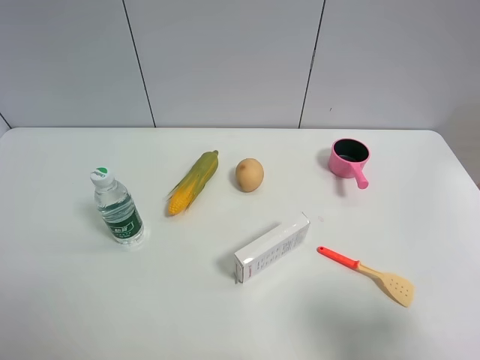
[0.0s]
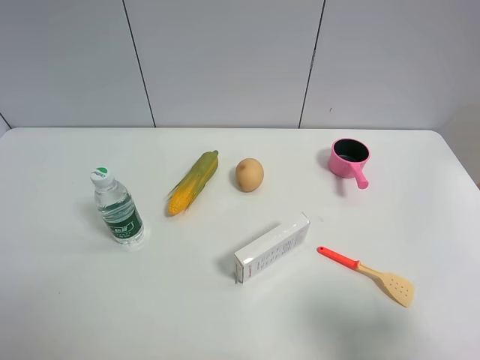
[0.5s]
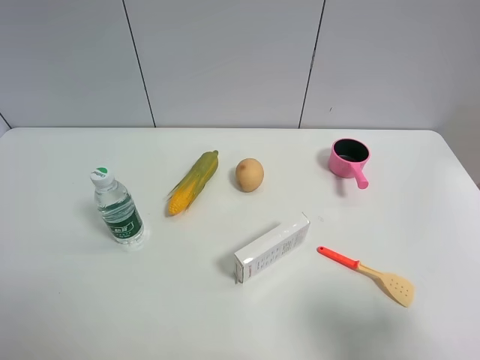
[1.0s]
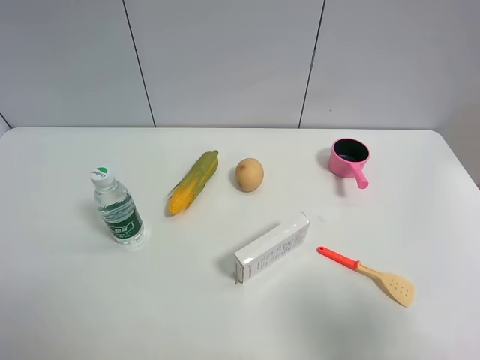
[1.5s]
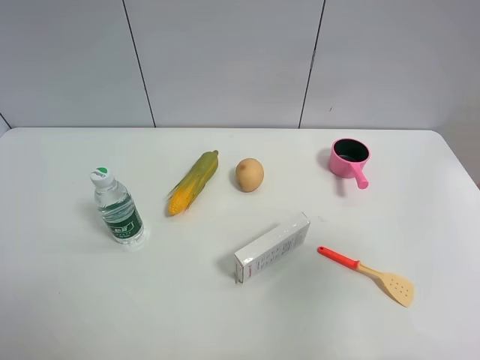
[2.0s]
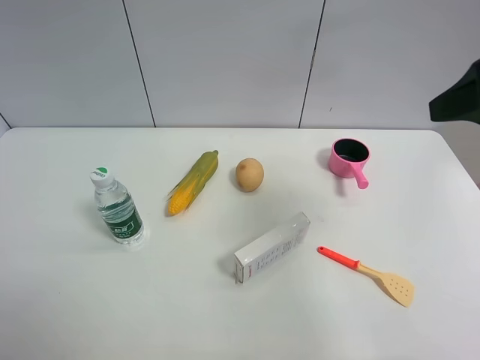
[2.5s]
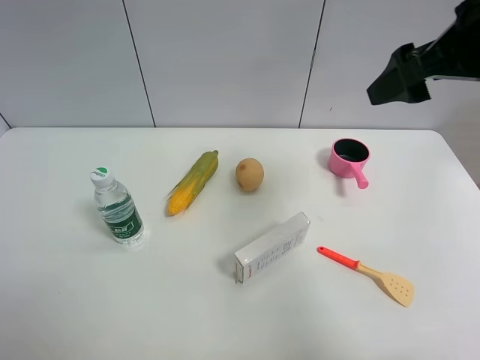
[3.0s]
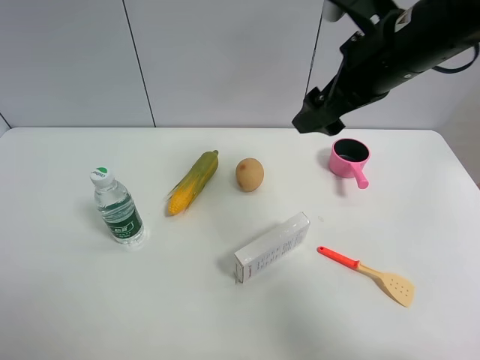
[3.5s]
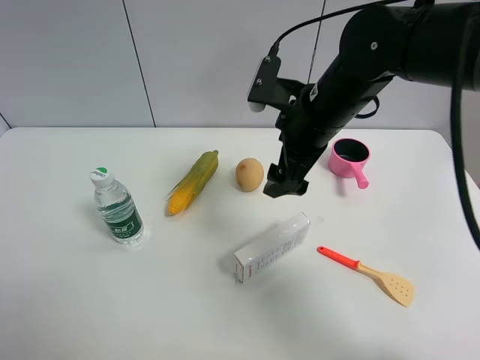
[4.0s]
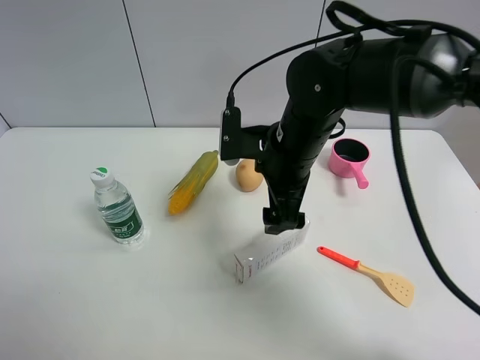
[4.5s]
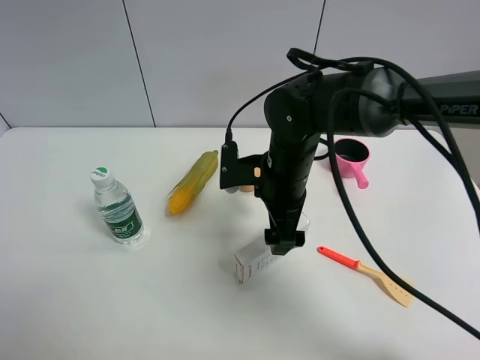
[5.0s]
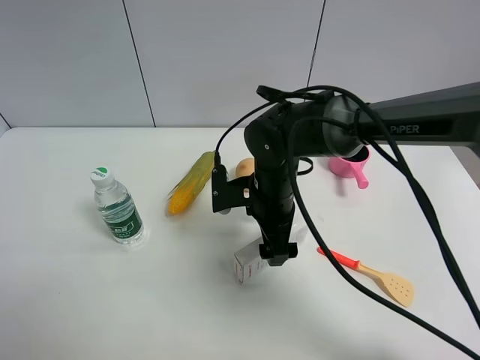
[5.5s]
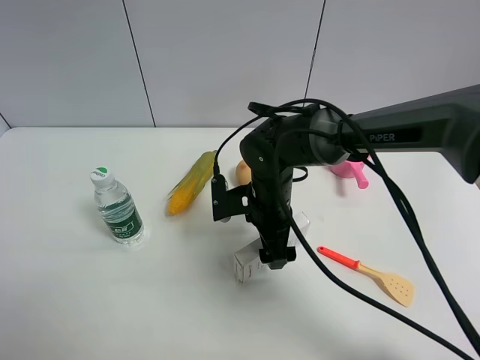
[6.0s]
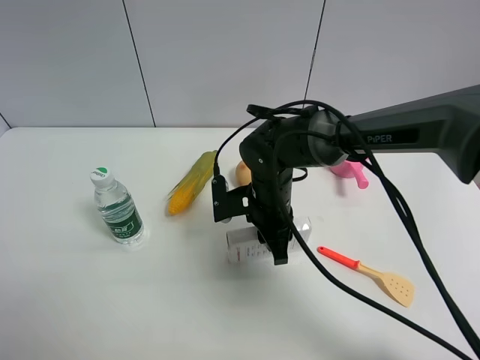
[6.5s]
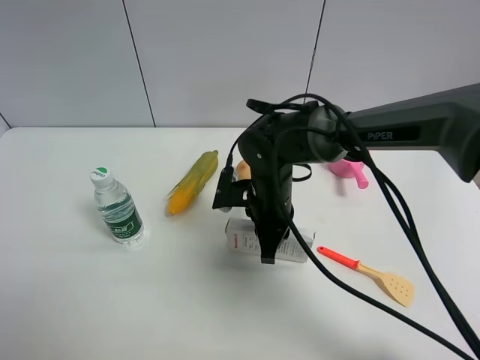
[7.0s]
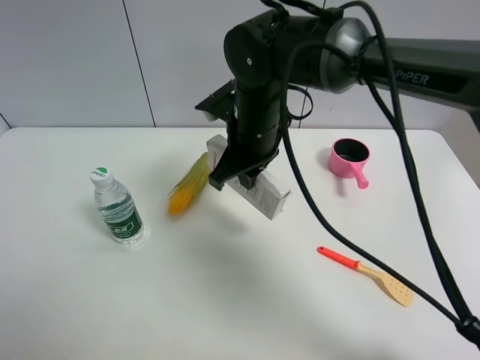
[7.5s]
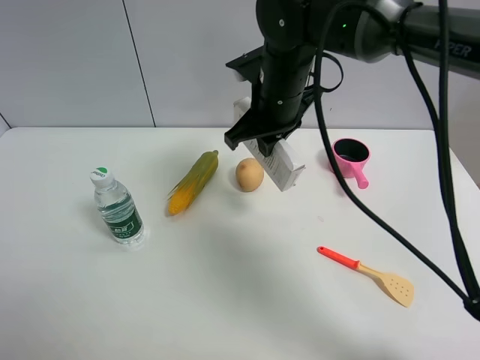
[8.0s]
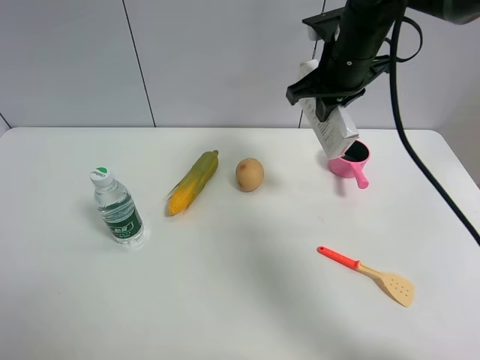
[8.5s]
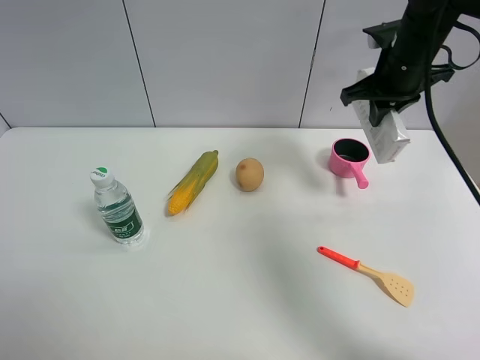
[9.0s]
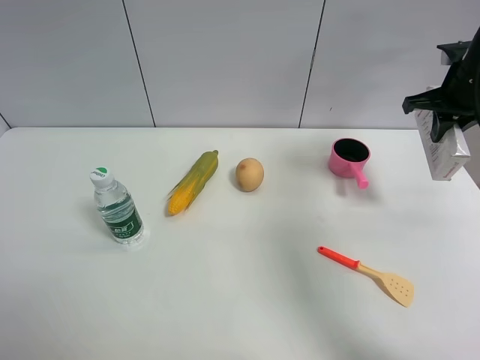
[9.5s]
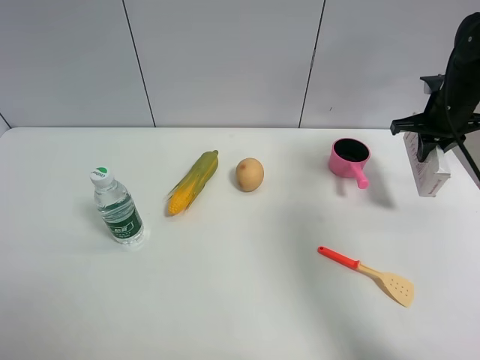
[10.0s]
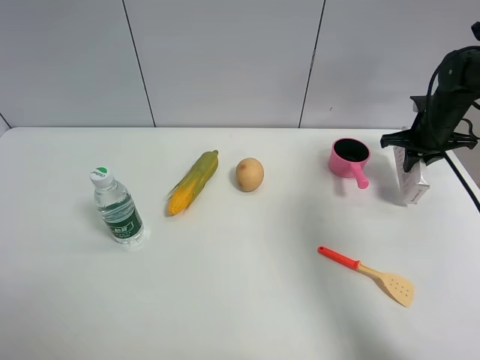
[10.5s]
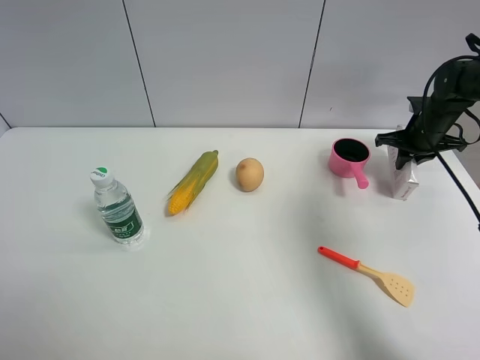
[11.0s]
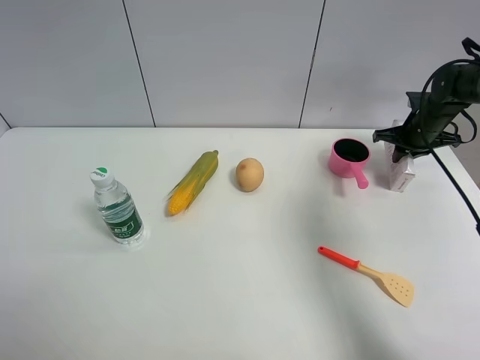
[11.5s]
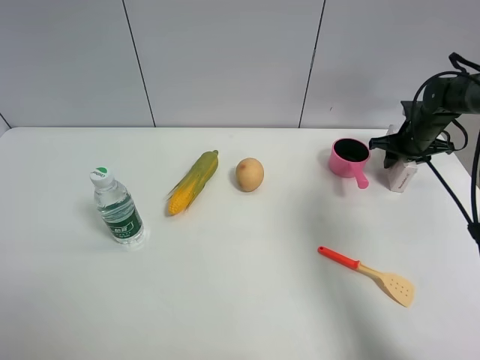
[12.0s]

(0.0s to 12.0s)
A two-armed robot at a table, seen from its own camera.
Task of the whole recording: the gripper move the object.
Step, 0.0s - 6.5s: Grasp the USB box with the right gripper.
0.0s - 2.0s: The right gripper shifts approximately 15 cm upward and forward.
2.0s - 4.0s: The right gripper heads forward, to the left and downward, covering about 35 cm.
4.0s - 6.0s: The right gripper heads downward, covering some 15 cm.
6.0s - 8.0s: The right gripper heads upward and forward, covering approximately 15 cm, and closes up.
8.0s - 10.0s: The right gripper shifts about 30 cm to the right.
10.0s - 12.0s: The right gripper moves downward and forward, about 10 cm, and opens.

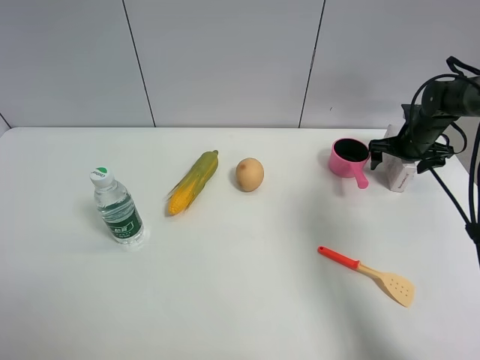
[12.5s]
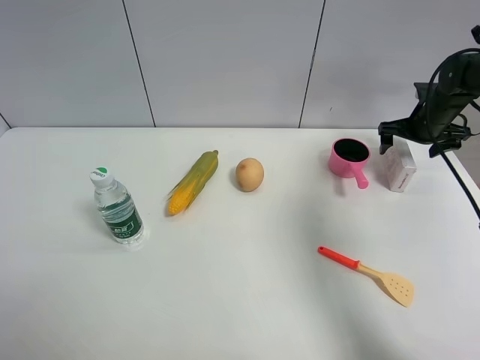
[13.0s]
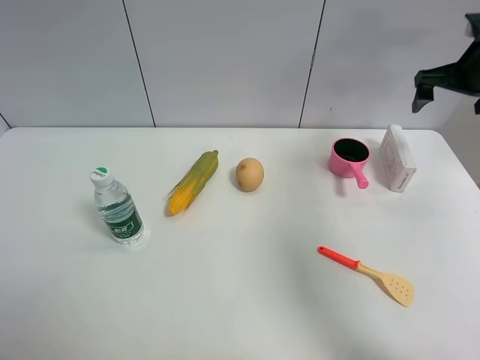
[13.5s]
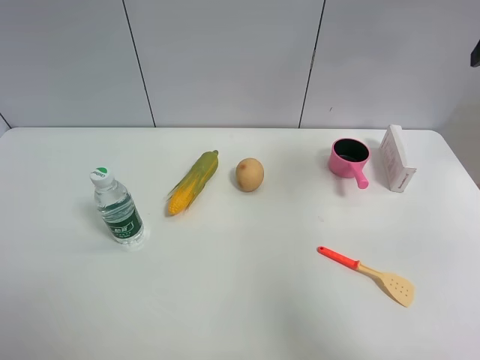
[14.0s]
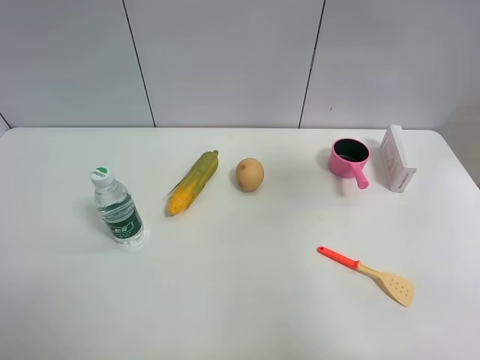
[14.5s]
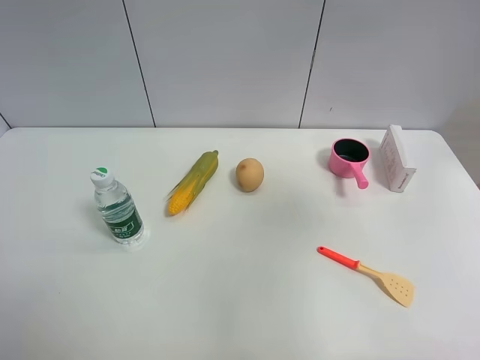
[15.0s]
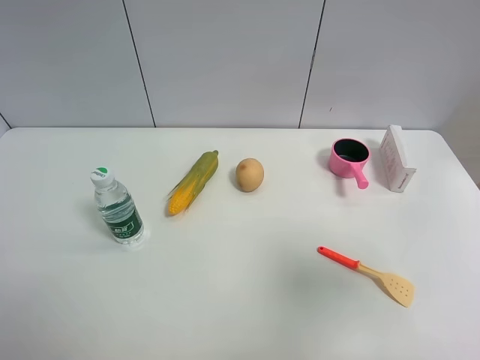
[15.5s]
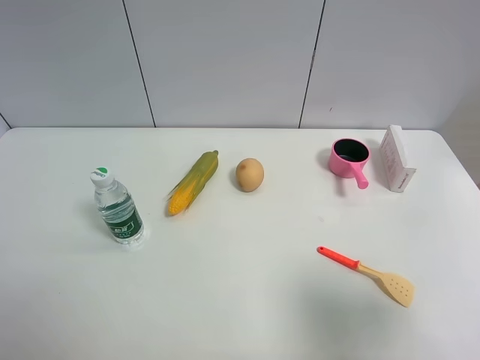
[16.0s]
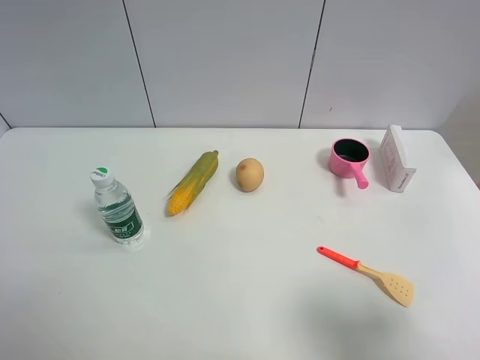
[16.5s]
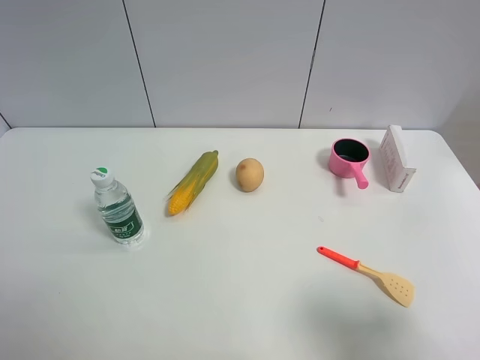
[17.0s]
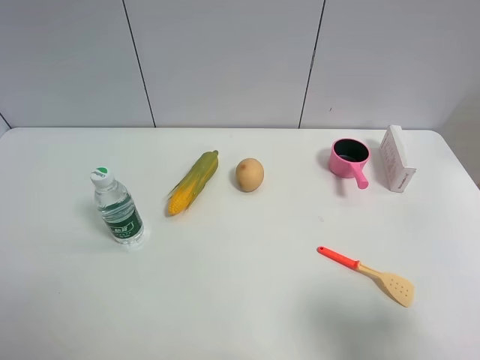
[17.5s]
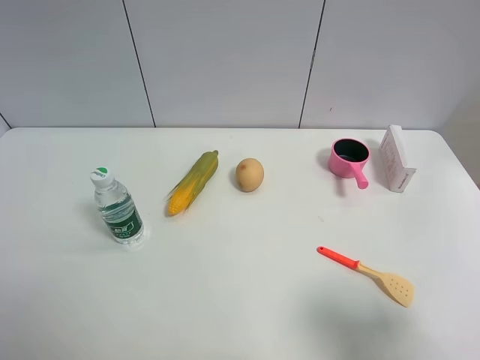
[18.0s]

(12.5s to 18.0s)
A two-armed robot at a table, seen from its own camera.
Task of the whole recording: the gripper move the object.
12.5s - 14.5s: The right gripper shifts about 40 cm upward and backward.
14.5s - 16.0s: The right gripper is displaced backward and downward by approximately 25 cm.

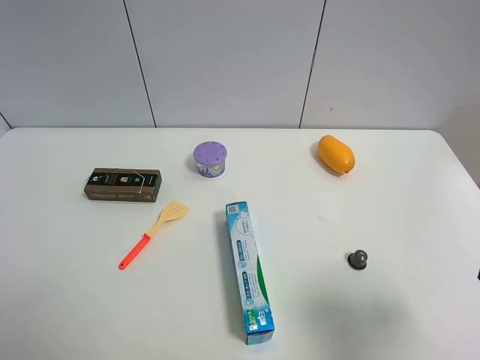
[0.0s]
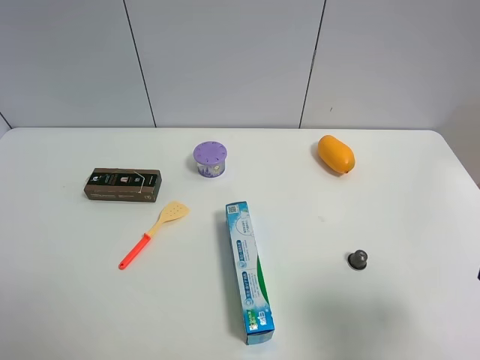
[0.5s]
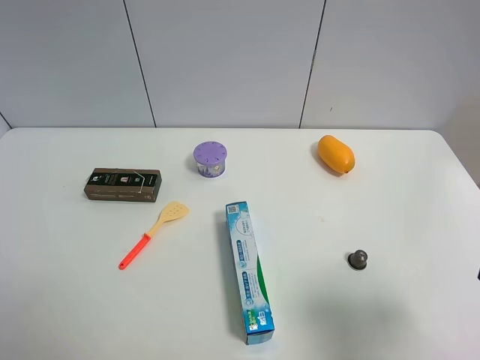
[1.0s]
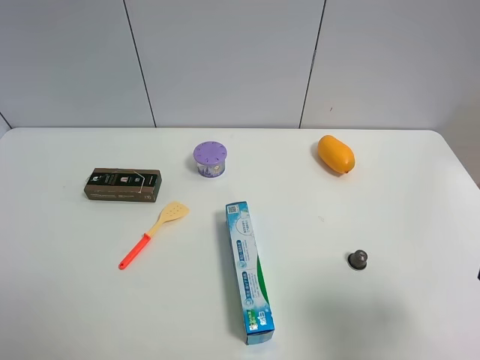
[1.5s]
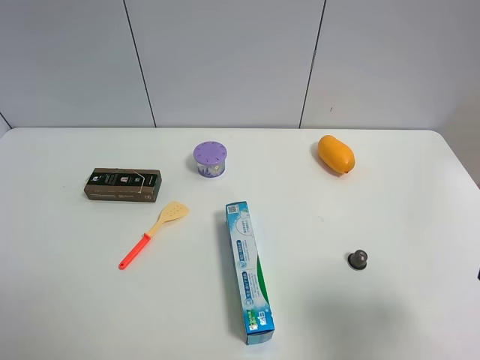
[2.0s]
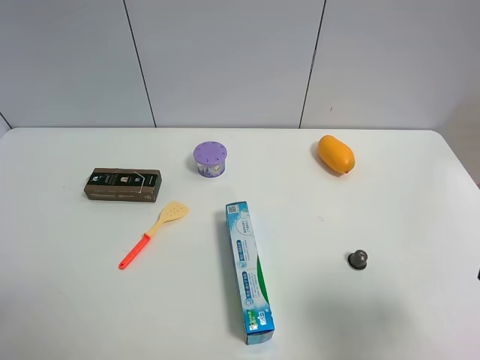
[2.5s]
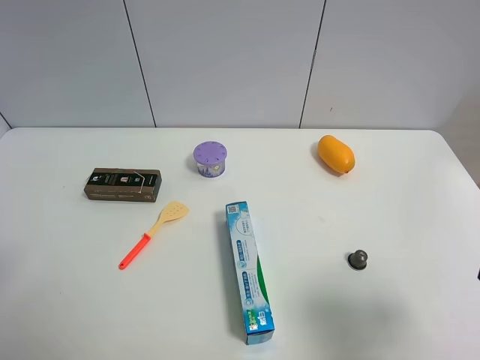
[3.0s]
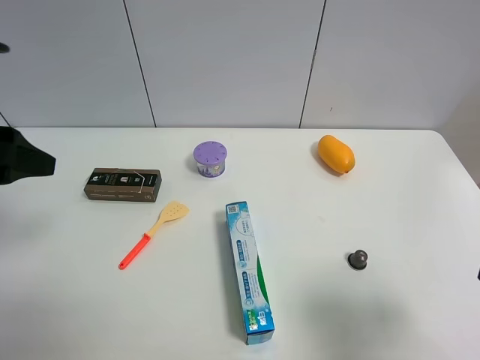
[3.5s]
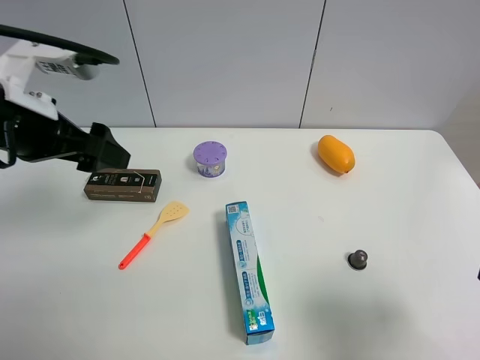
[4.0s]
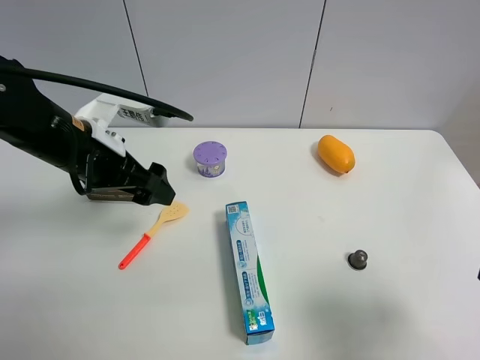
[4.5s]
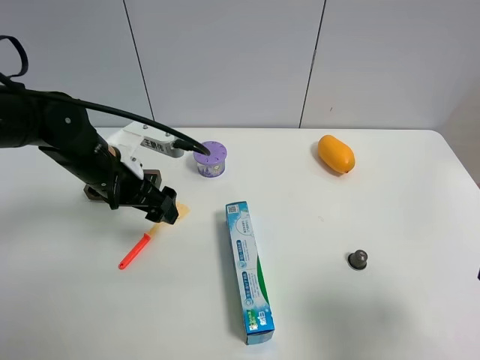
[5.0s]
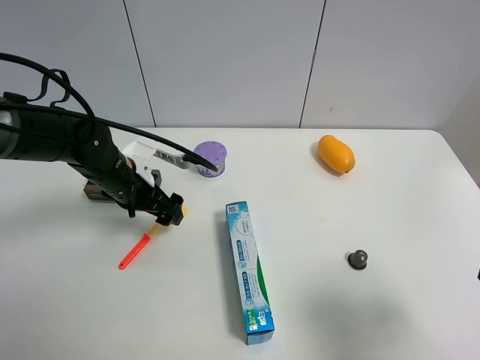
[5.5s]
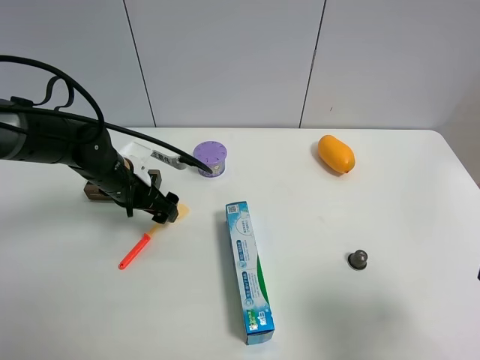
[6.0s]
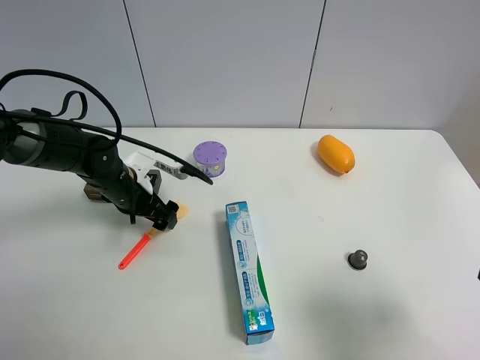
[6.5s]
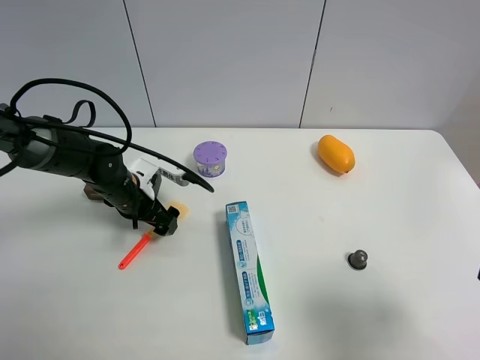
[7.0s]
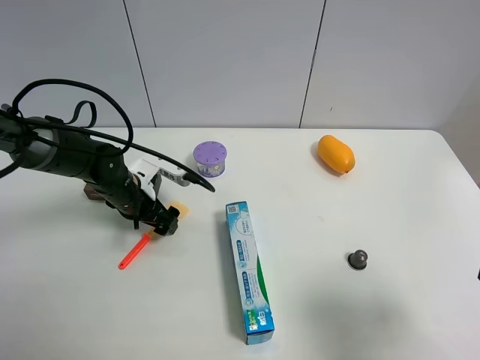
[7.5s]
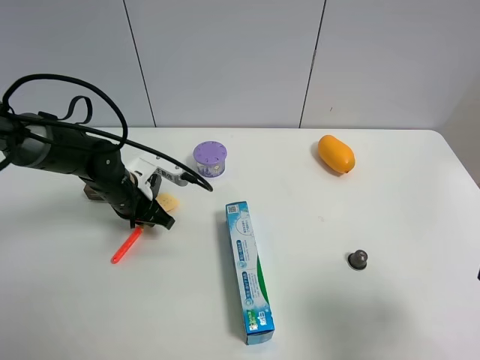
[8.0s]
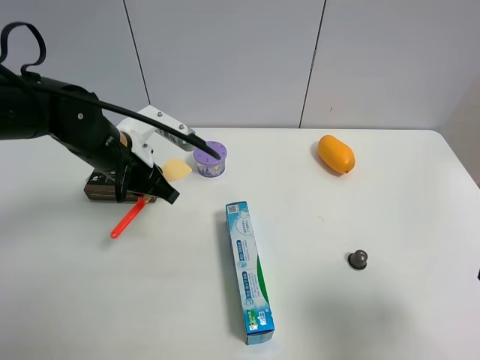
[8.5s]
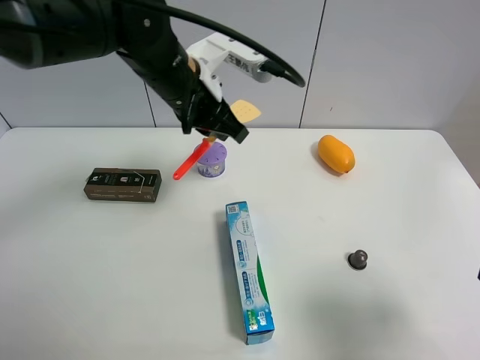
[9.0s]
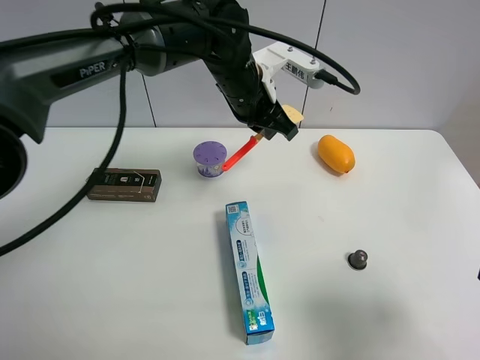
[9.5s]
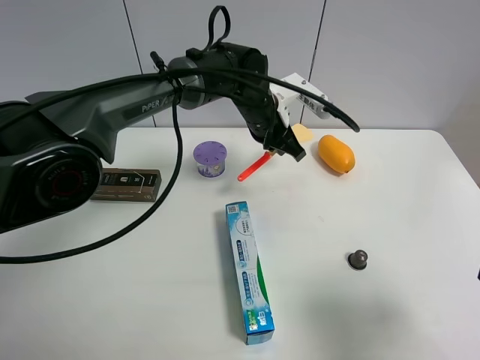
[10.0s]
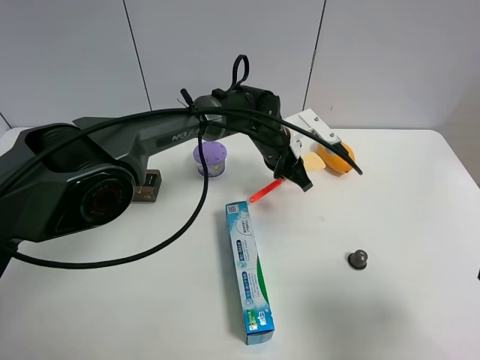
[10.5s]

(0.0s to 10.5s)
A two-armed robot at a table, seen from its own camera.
Task of the whole recording: the gripper move the object.
Step, 0.0s - 7.5s: Grasp the cooking shovel with the left gripper.
0.0s - 2.0s: The two grippers keep their place.
2.0s - 4.0s: The left gripper shifts roughly 25 cm forward.
4.0s - 6.5s: The left gripper moves downward and forward, roughly 20 cm.
6.5s - 8.5s: The left gripper is displaced upward by roughly 10 cm, and closes up.
8.5s - 10.5s: The left gripper heads to the right and forward, covering about 25 cm.
